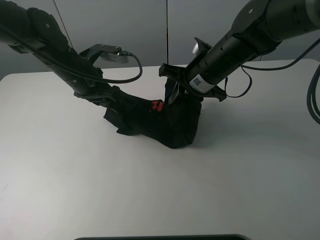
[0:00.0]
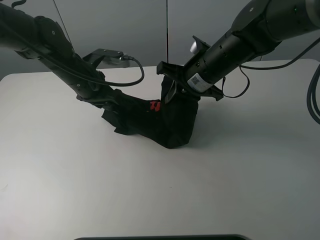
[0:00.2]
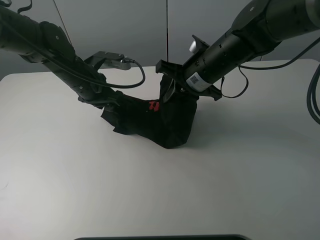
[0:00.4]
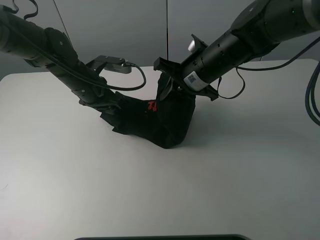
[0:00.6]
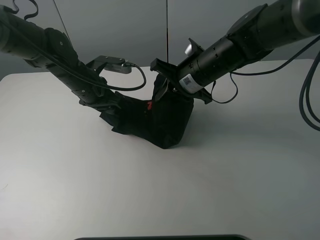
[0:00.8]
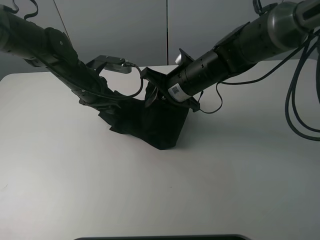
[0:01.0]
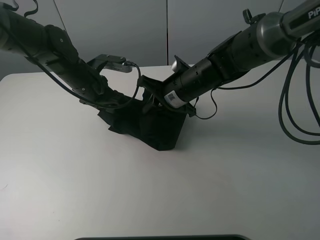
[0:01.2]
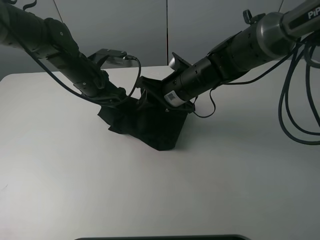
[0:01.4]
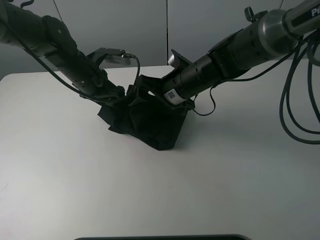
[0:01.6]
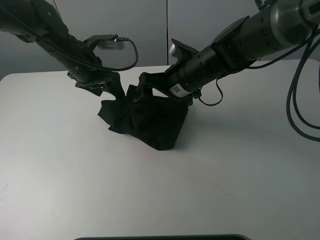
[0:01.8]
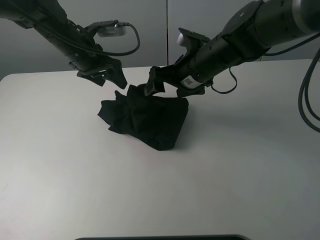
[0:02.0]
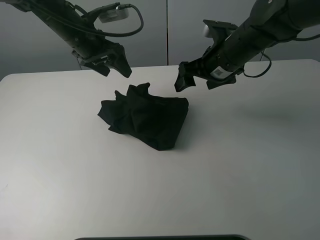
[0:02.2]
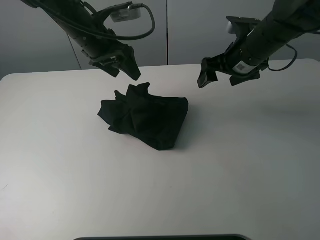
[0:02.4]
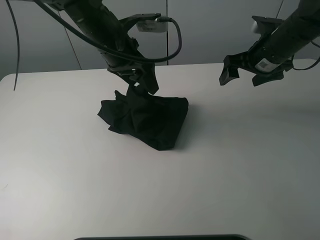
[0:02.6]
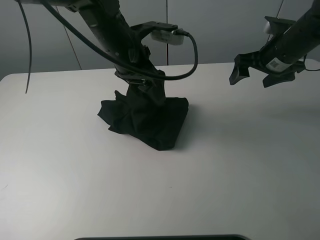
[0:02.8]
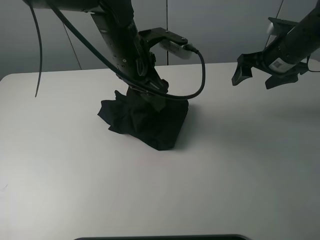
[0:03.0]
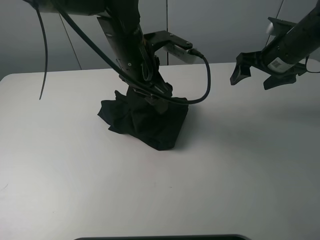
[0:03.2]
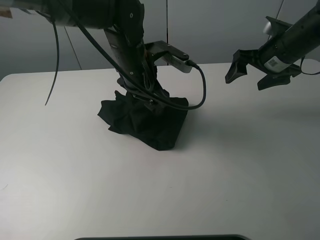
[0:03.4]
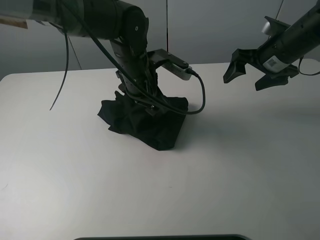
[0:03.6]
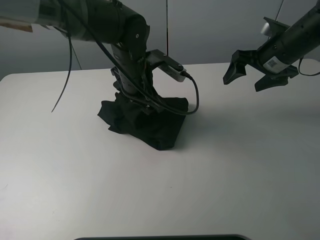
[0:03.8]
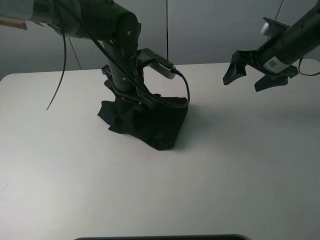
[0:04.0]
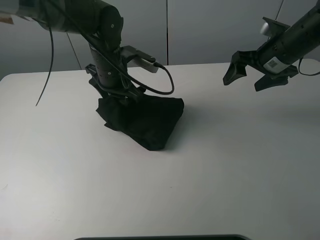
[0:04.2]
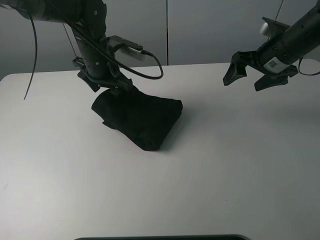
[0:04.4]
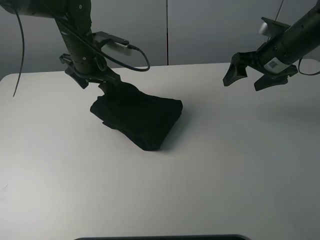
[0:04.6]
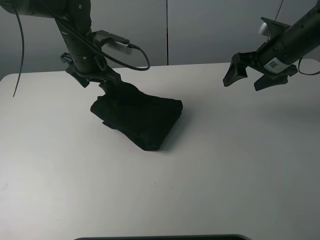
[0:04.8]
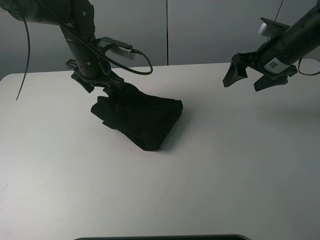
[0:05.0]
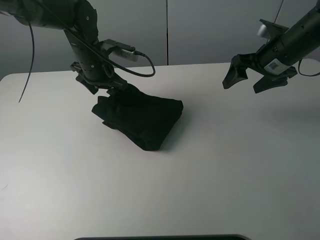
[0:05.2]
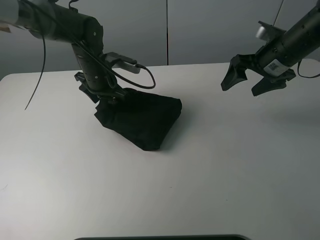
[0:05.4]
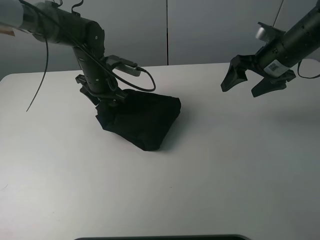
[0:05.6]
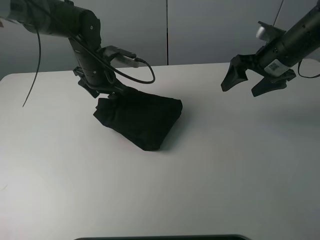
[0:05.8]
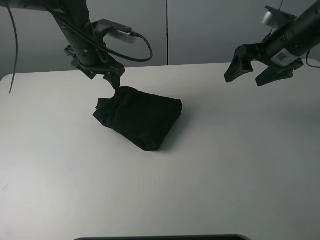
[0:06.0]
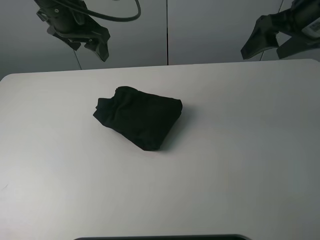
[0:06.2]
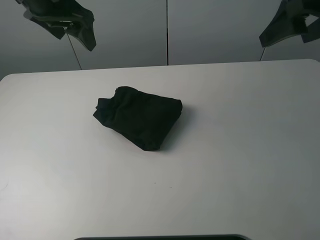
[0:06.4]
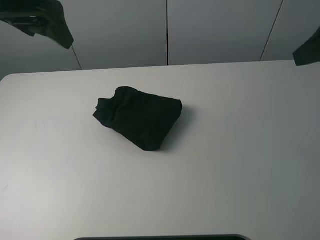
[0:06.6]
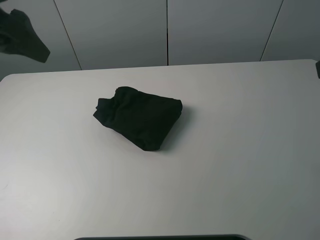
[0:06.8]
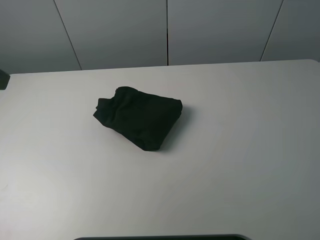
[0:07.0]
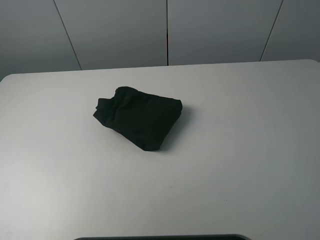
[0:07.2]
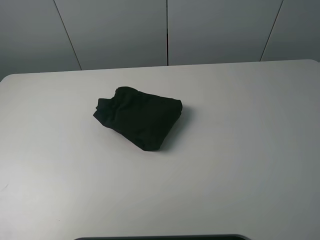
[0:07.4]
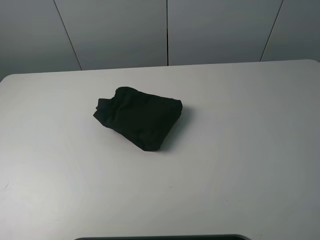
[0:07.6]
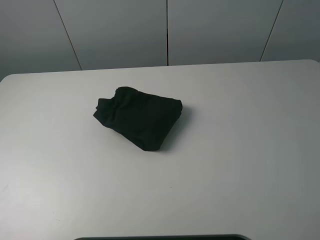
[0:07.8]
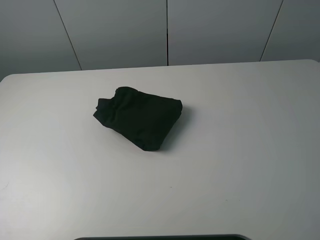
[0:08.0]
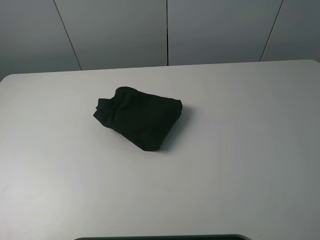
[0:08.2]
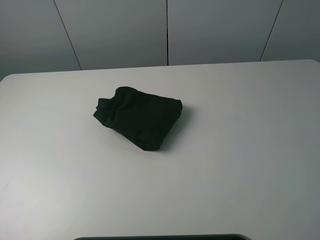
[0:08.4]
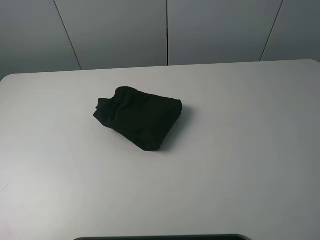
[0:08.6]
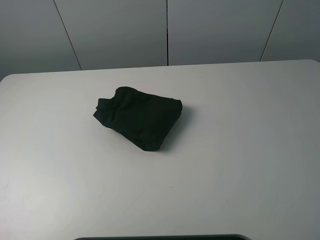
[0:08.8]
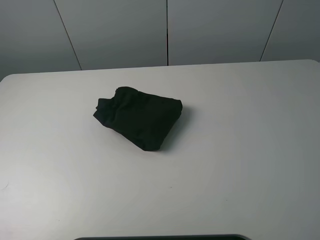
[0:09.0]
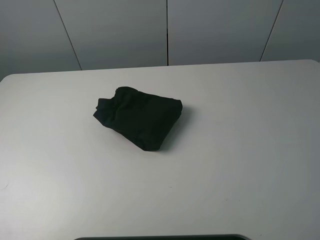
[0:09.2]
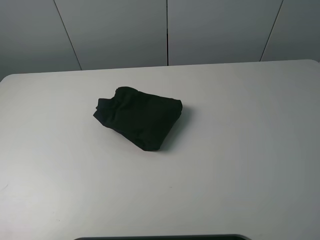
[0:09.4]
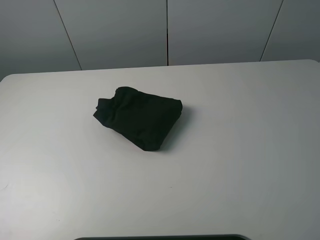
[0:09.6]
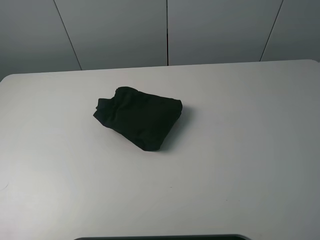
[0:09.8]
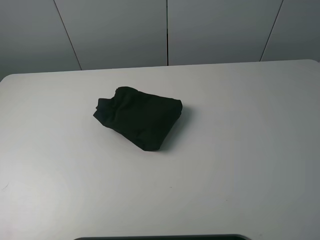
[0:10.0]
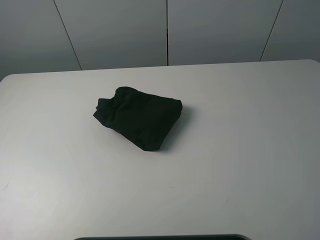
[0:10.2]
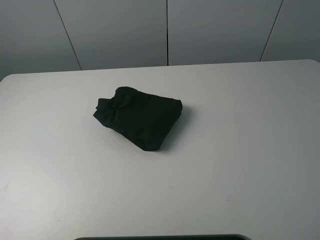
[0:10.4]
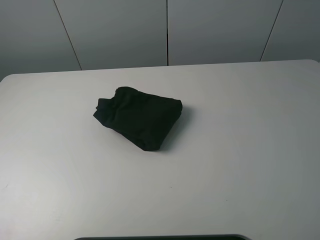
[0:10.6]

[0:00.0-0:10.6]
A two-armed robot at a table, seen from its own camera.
Task of the whole recording: fold the clothes on the table.
Step, 0:00.0 to 0:02.0: Fold the black T-shirt from right to left with right gripper.
Step, 0:02.2 to 0:06.0: Use the left gripper to tidy up the clothes.
0:00.0 to 0:01.6: The right gripper shifts by approximately 5 cm, and opens.
0:01.6 to 0:03.0: The right gripper moves to the right, some 20 cm. Meanwhile the left gripper heads to the right, upward and backward, covering roughly 15 cm.
0:03.0 to 0:04.6: The left gripper travels to the left and forward by approximately 15 cm.
0:06.0 to 0:07.6: The right gripper travels backward by roughly 30 cm. The left gripper moves backward and to the left, about 40 cm.
